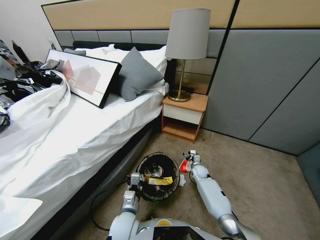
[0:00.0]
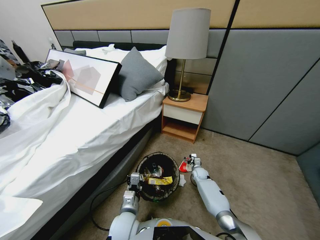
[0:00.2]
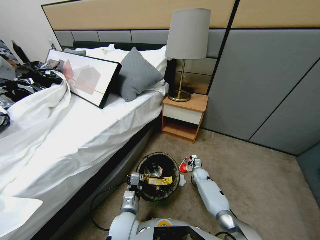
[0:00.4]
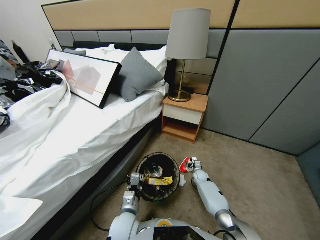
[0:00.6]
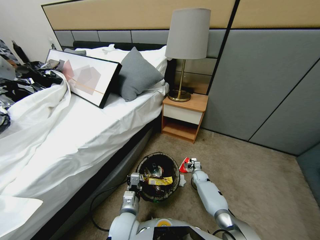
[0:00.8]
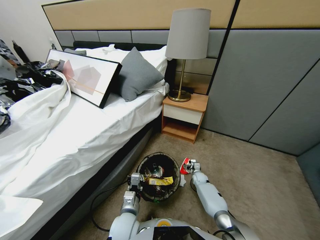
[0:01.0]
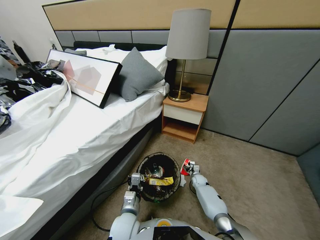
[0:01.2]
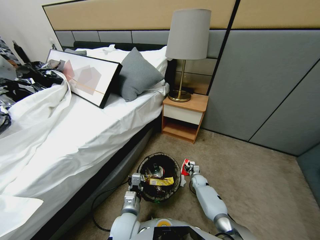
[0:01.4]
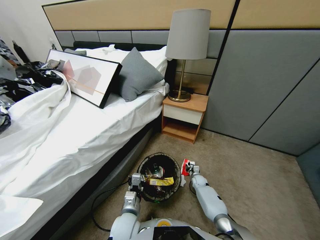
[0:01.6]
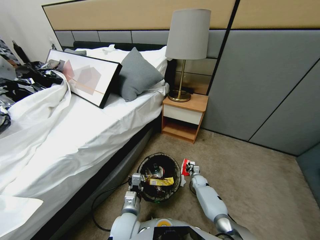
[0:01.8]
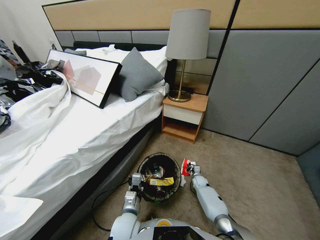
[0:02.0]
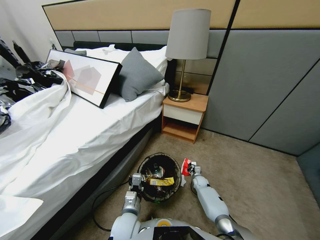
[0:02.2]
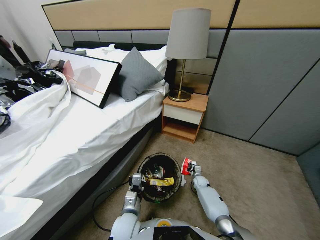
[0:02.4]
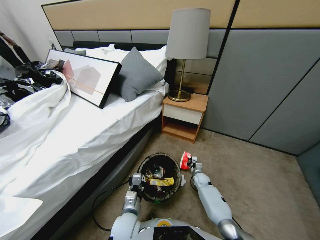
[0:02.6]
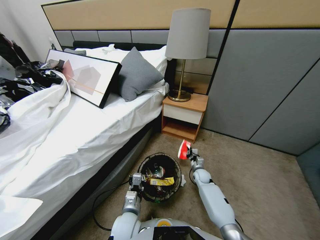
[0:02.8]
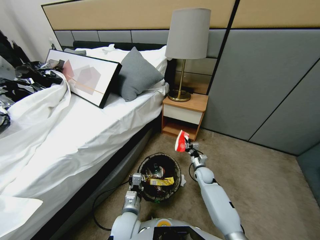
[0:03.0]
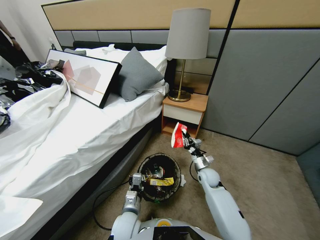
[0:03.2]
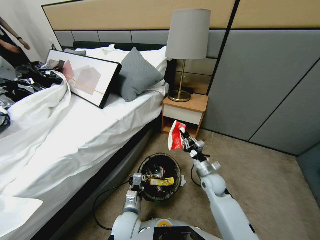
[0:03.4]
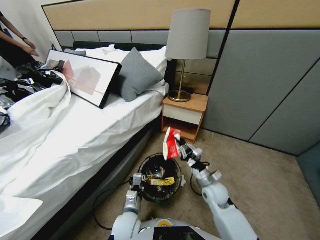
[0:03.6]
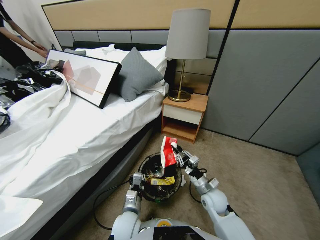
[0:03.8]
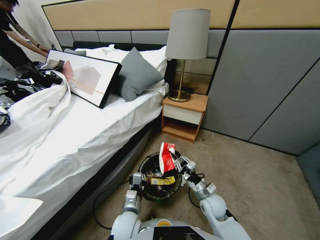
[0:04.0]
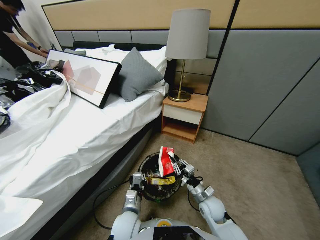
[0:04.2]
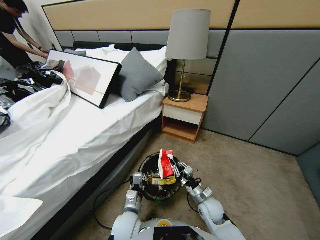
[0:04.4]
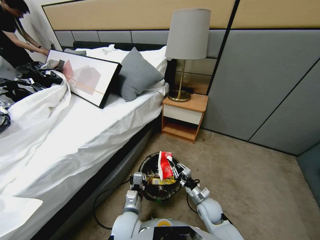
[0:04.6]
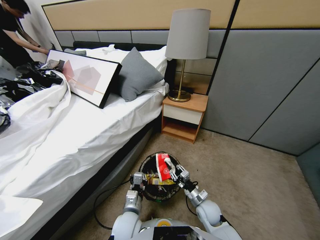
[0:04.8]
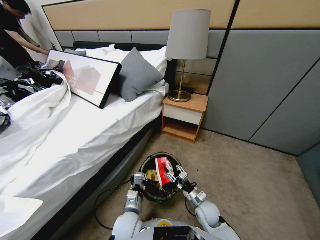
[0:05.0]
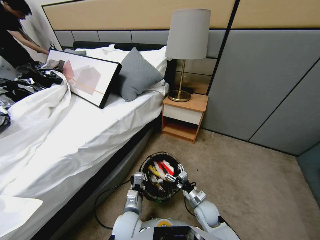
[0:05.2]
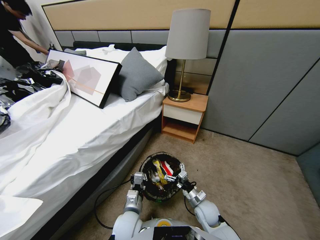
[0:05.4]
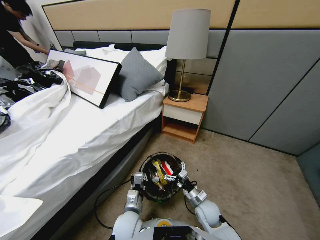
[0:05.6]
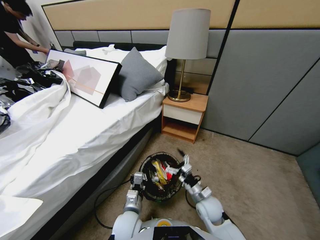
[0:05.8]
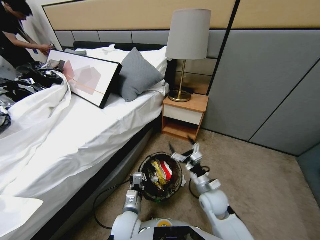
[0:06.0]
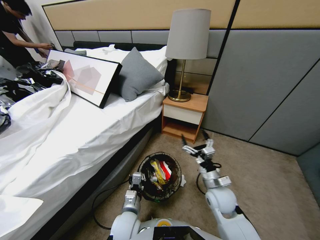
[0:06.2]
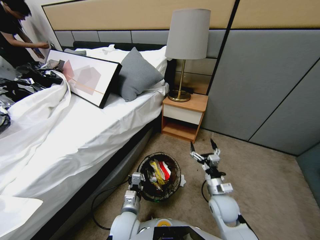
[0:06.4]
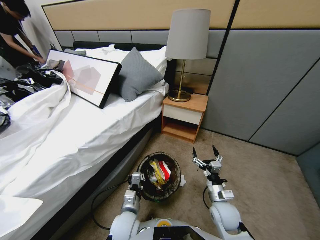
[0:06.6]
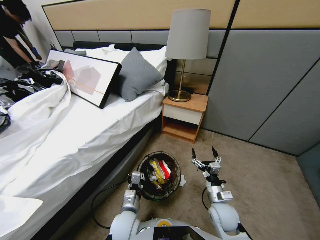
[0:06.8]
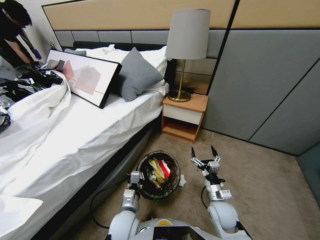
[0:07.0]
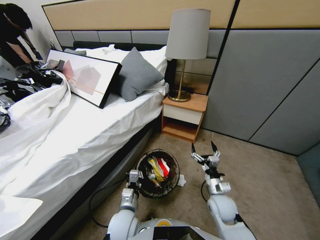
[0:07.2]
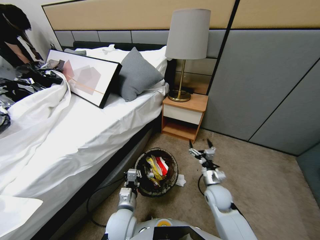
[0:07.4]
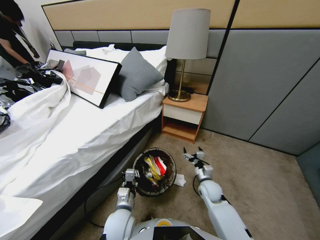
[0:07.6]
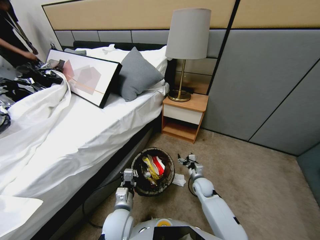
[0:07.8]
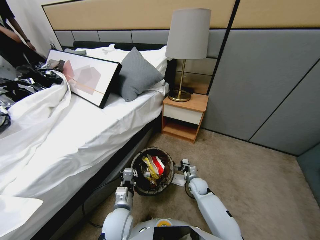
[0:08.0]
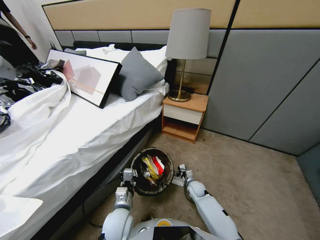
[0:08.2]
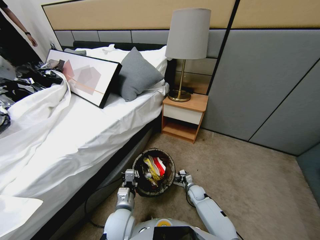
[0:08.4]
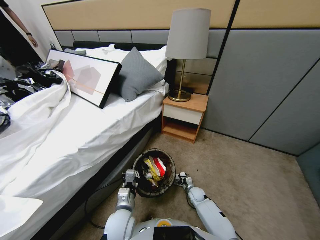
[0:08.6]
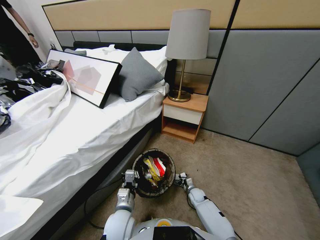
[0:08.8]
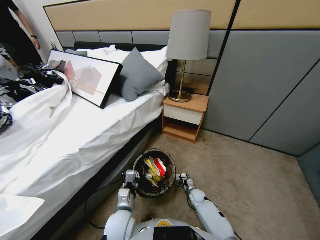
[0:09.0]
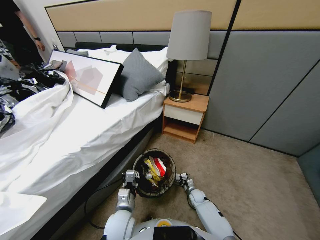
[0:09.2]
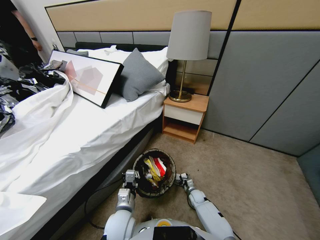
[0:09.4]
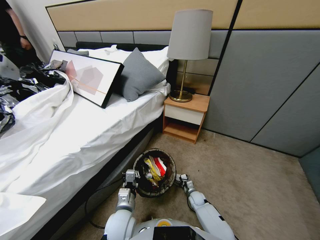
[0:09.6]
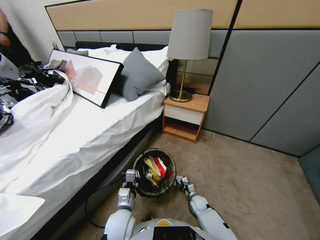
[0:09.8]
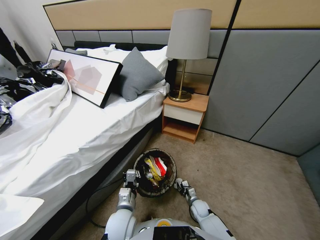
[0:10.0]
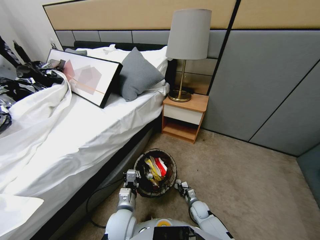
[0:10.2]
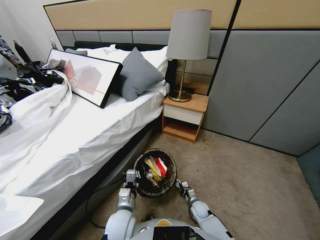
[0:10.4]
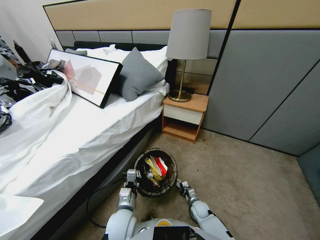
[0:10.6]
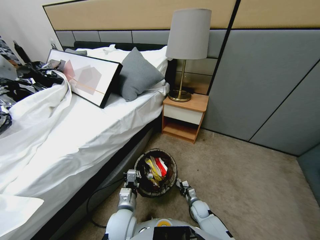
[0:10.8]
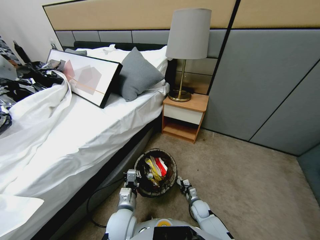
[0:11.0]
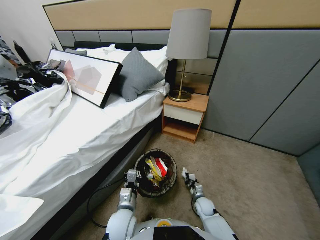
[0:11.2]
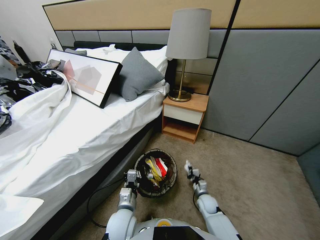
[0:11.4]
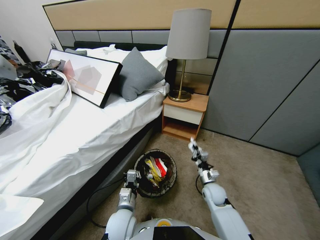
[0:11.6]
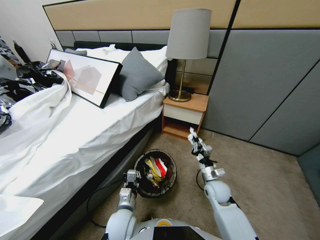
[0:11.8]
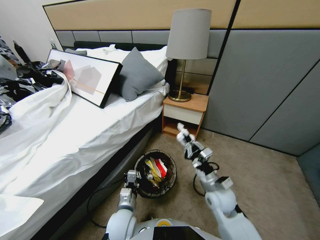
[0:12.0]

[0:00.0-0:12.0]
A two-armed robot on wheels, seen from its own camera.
Task of the whole recording: Pick up the trash bin, then pick up the garbage from the floor and place it into the trash bin.
0:00.0 to 0:01.6: The right gripper shifts some 5 cm downward, and closes its fingers.
0:01.6 to 0:03.0: The right gripper shifts some 15 cm upward.
0:03.0 to 0:04.4: The right gripper travels backward by about 15 cm.
0:04.4 to 0:06.0: The right gripper is displaced upward by some 5 cm, and opens up.
0:06.0 to 0:07.6: The right gripper shifts approximately 10 cm forward and downward.
0:07.6 to 0:09.0: The right gripper heads downward, covering approximately 20 cm.
0:09.0 to 0:10.4: The right gripper goes some 5 cm backward, and closes up.
0:10.4 to 0:12.0: The right gripper heads upward, covering some 30 cm.

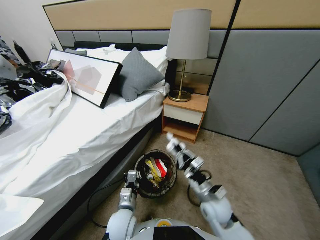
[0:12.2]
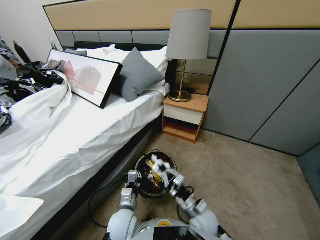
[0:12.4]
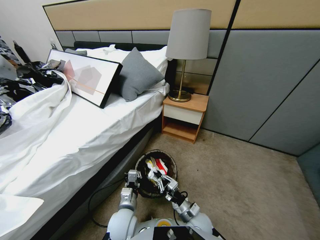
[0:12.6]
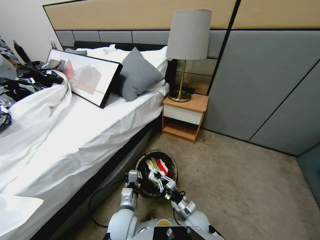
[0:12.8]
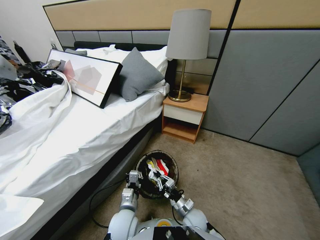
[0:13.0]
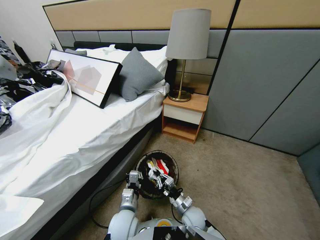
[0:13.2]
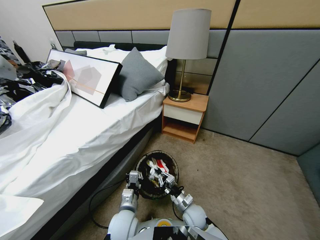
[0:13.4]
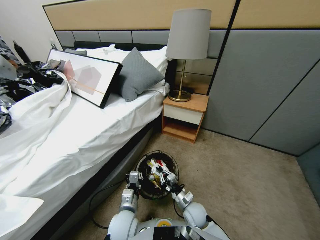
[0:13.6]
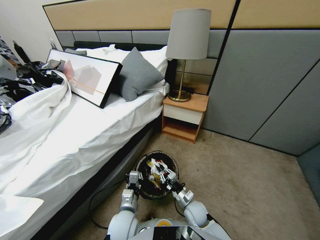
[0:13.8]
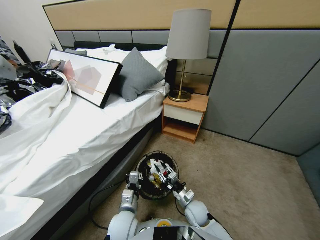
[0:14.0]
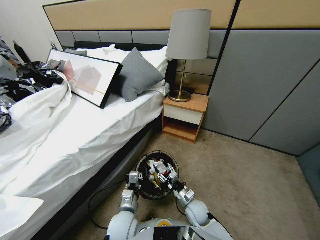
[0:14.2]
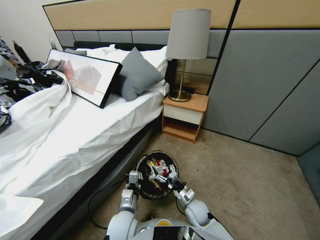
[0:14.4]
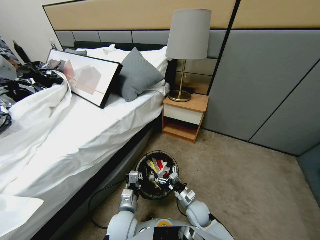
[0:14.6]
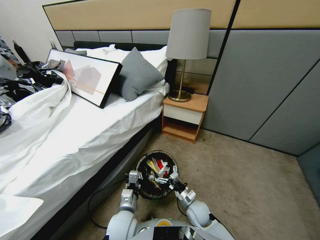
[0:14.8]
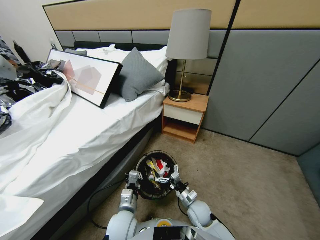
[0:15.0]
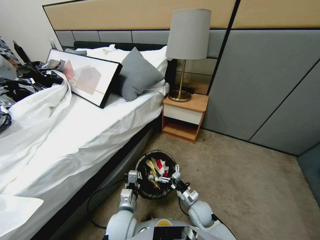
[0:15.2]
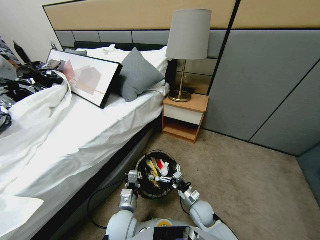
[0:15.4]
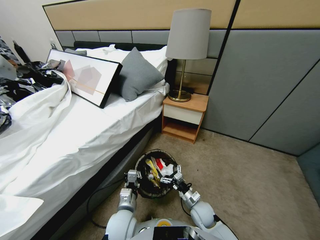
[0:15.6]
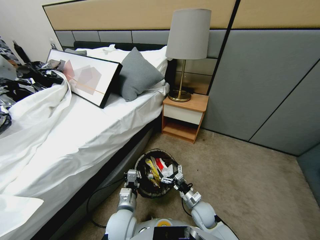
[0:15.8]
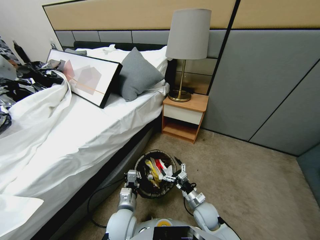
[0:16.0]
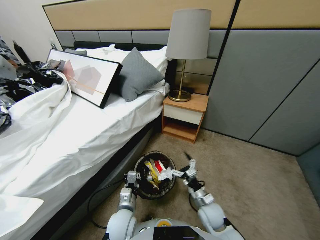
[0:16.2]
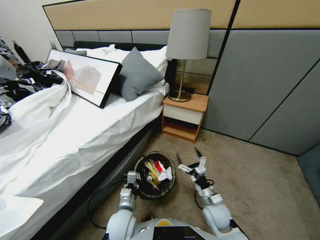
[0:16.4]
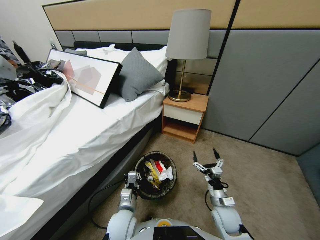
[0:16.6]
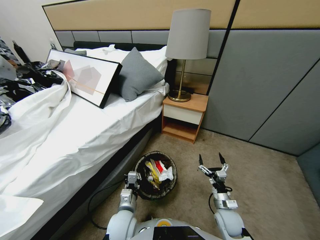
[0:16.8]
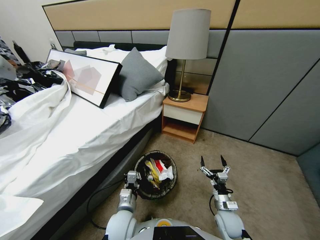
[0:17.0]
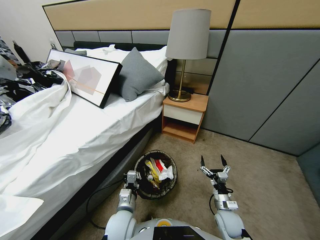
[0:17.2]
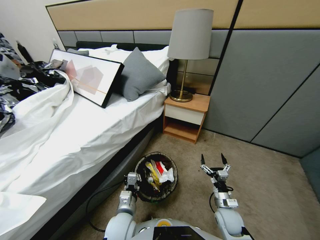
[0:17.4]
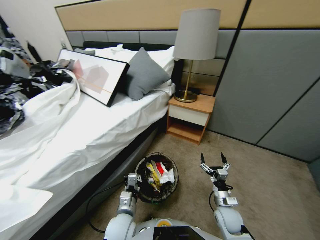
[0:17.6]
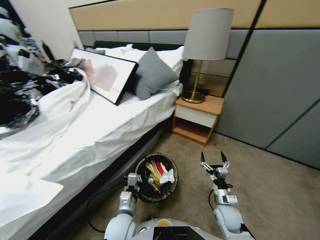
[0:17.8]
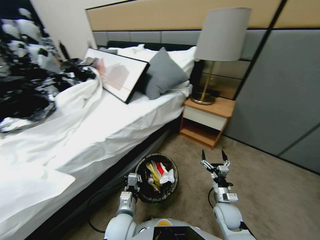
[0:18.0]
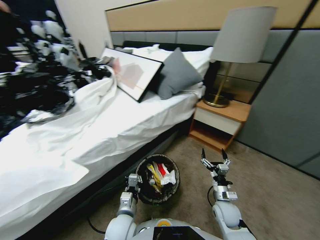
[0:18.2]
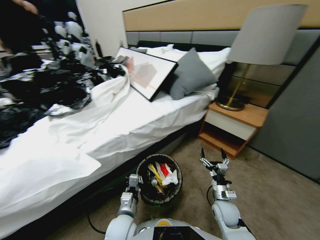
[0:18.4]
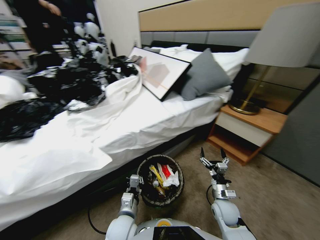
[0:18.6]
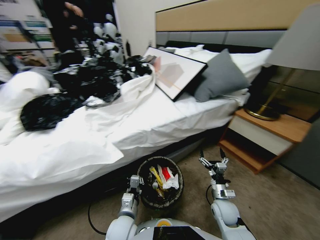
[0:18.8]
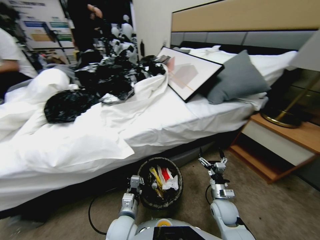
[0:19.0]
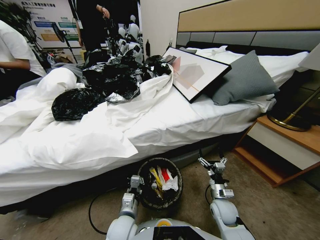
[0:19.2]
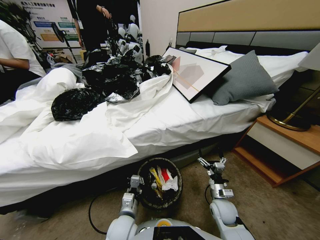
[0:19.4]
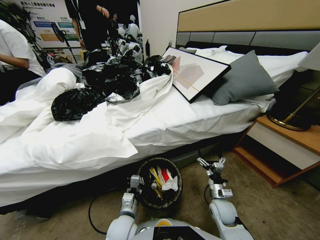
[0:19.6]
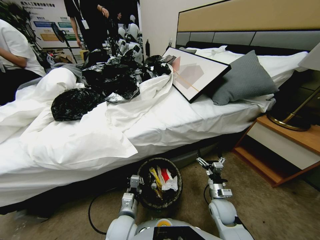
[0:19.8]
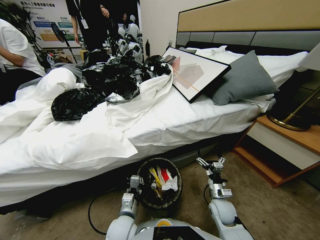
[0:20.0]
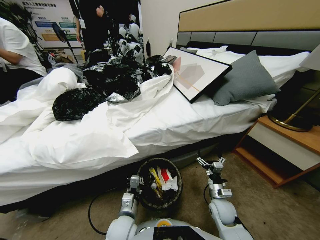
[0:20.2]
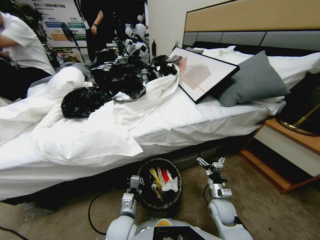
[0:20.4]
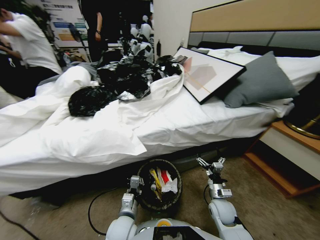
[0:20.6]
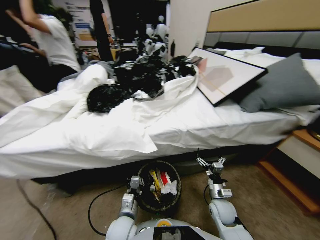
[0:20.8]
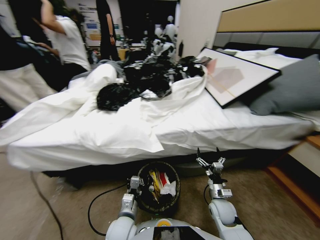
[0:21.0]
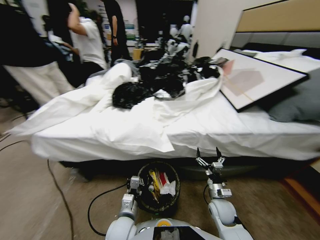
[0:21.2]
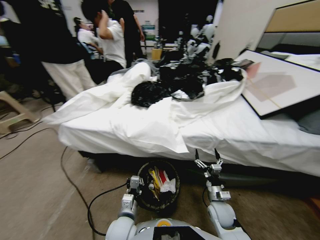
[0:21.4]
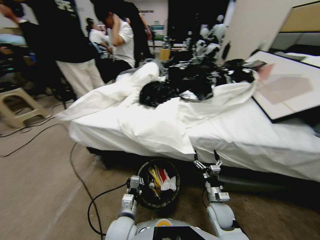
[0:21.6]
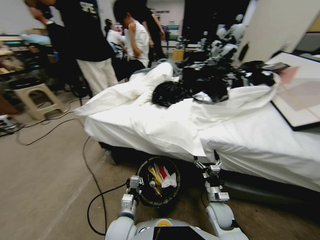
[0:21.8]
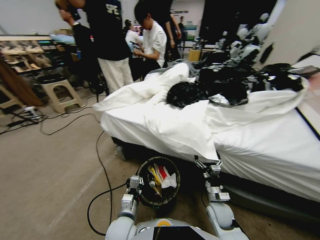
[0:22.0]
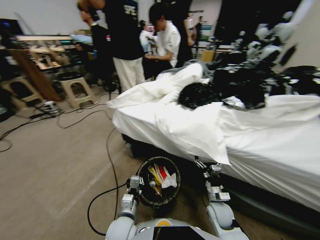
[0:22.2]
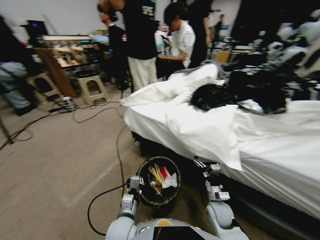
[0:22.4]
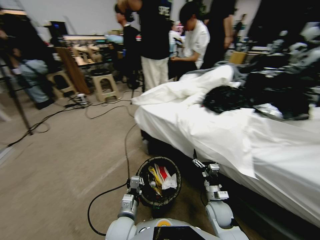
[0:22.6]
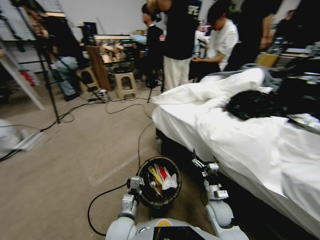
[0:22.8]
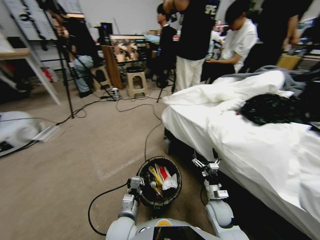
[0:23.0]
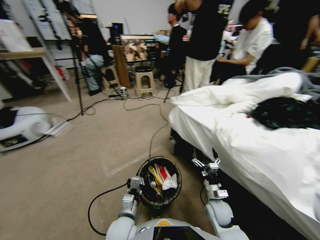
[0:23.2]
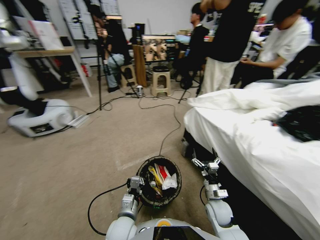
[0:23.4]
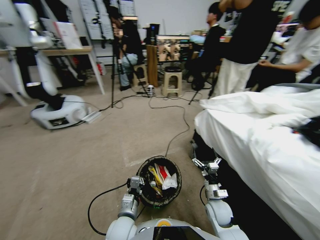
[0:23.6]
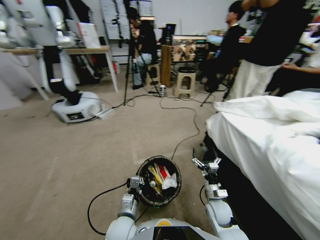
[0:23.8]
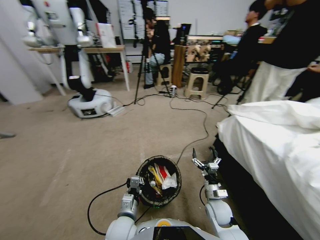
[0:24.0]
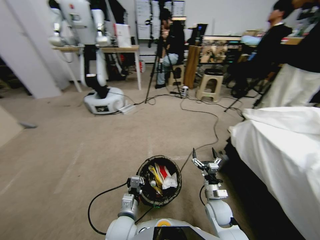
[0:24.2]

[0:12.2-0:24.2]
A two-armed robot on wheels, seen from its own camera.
Task of the whole recording: Pick up the trash bin, then pick up the garbage from the floor and place it into the trash bin.
0:12.2 to 0:13.8: The right gripper shifts some 10 cm downward.
0:13.8 to 0:15.2: The right gripper opens its fingers.
0:15.2 to 0:16.6: The right gripper goes approximately 10 cm upward and to the right.
